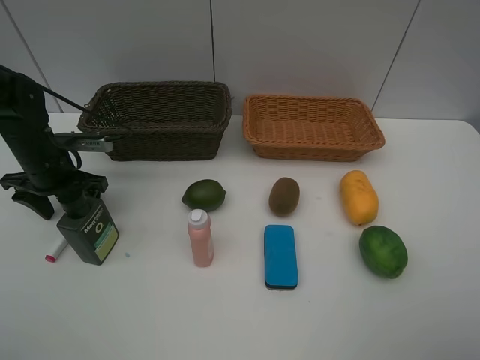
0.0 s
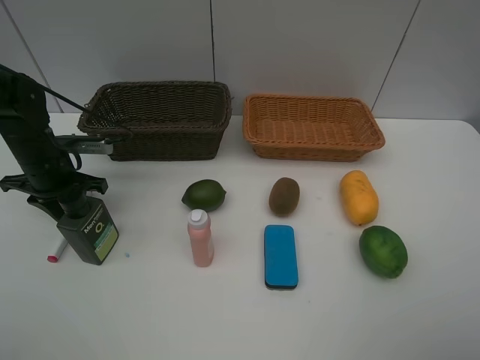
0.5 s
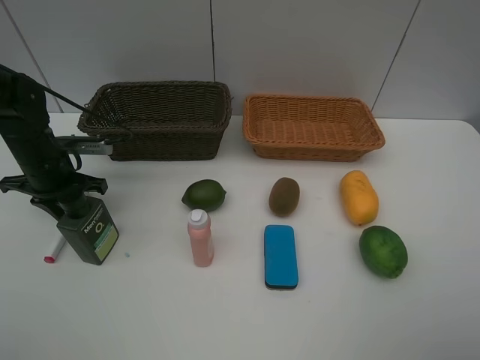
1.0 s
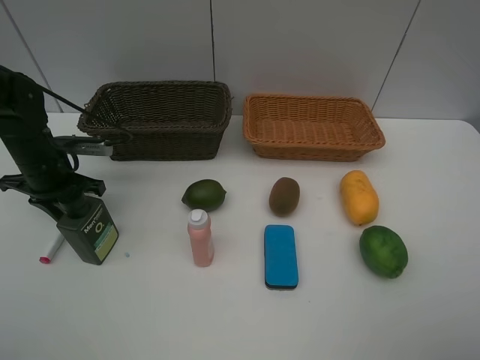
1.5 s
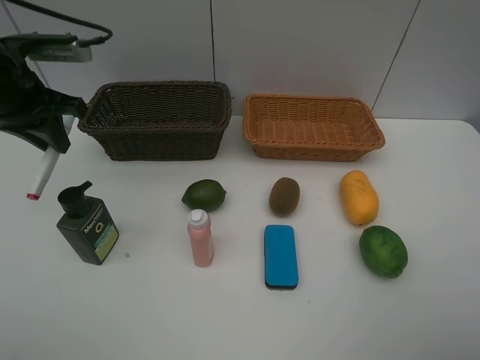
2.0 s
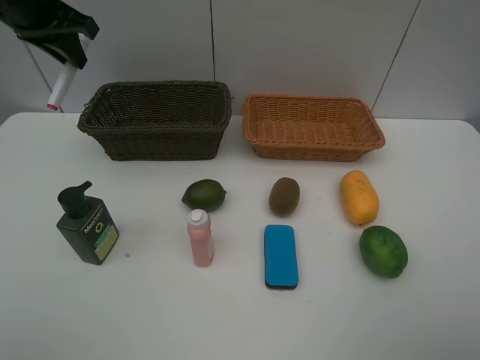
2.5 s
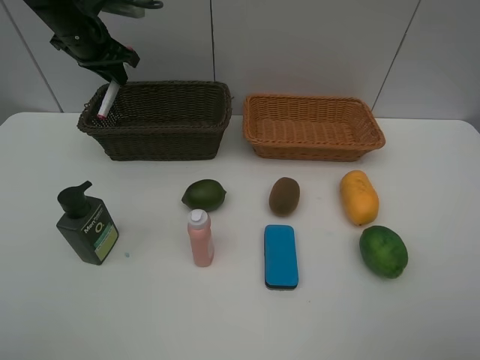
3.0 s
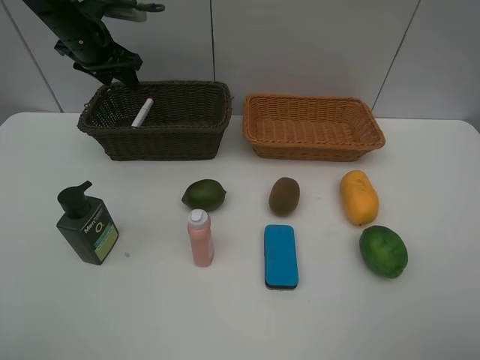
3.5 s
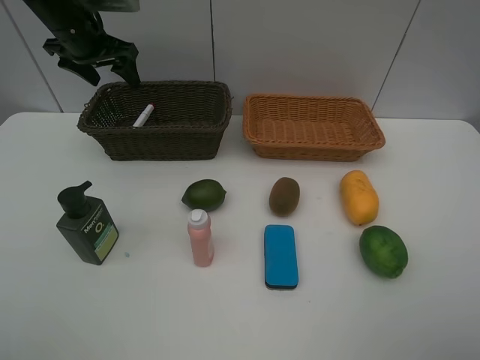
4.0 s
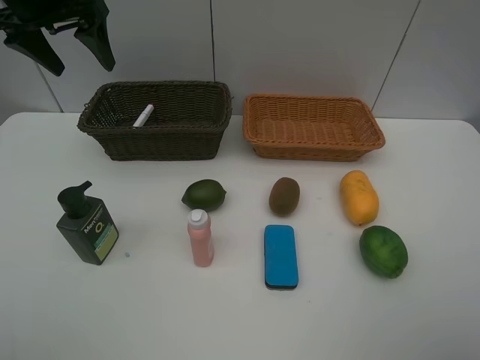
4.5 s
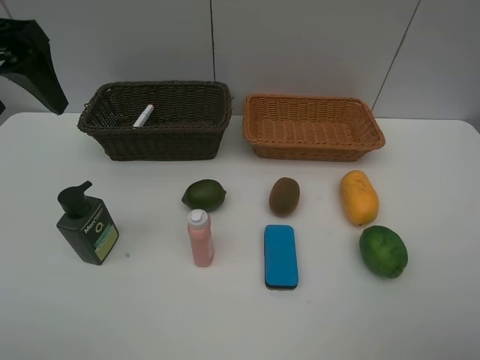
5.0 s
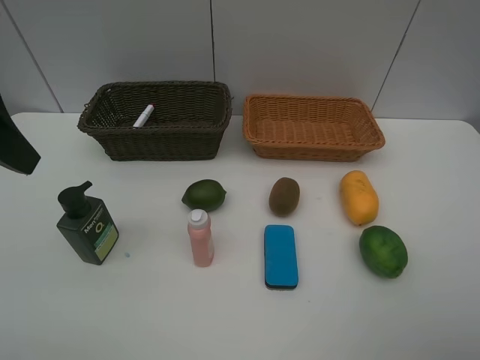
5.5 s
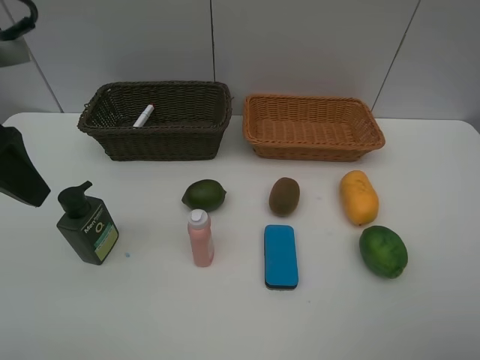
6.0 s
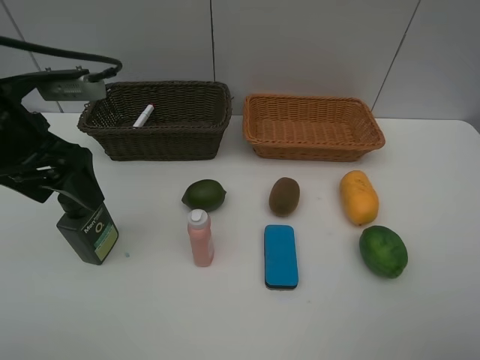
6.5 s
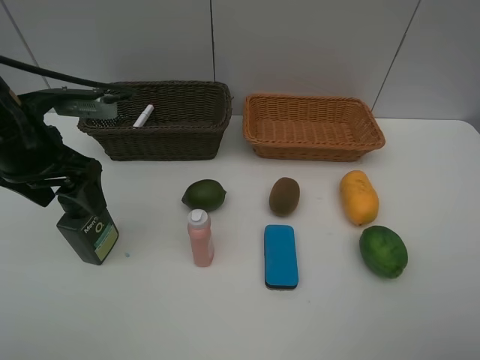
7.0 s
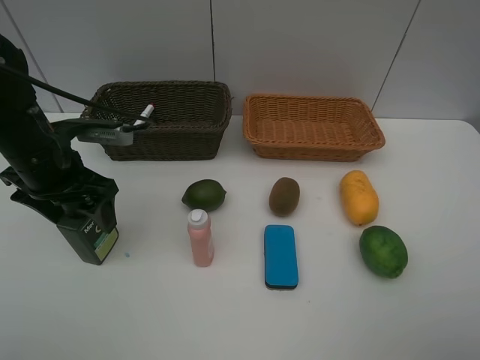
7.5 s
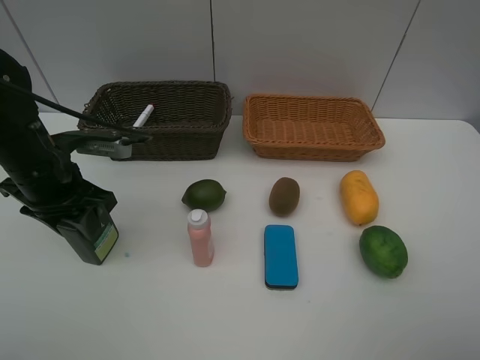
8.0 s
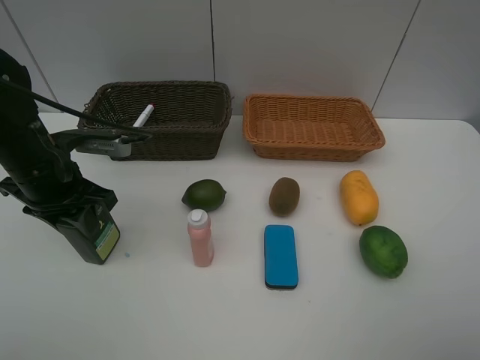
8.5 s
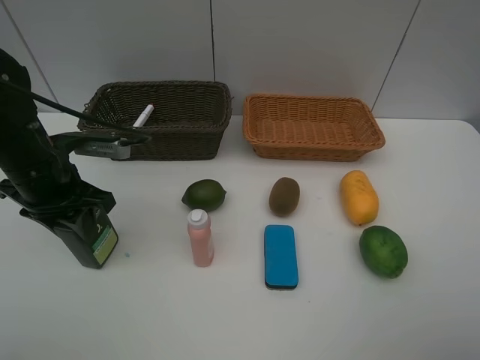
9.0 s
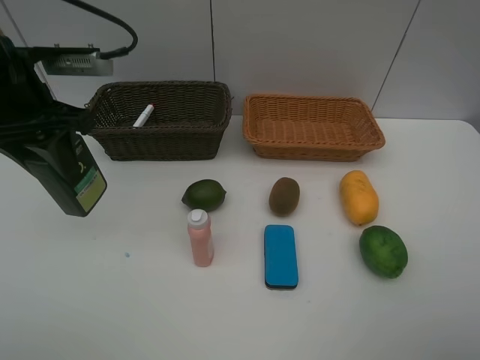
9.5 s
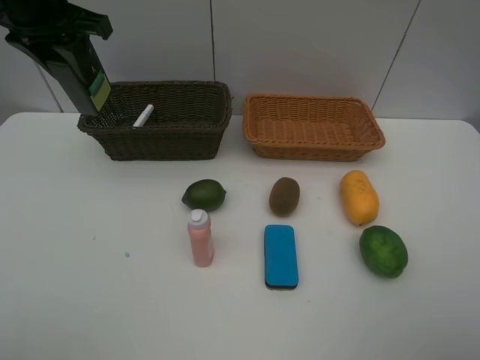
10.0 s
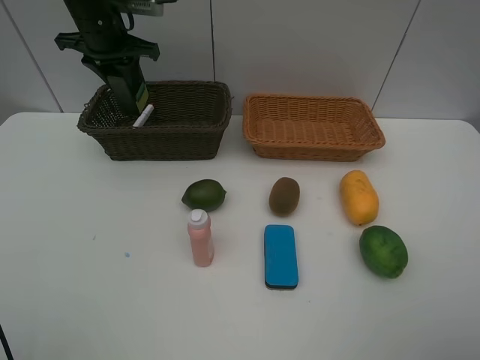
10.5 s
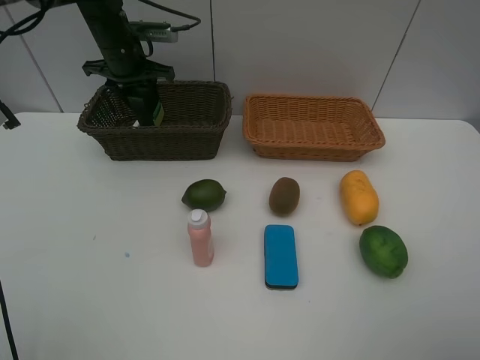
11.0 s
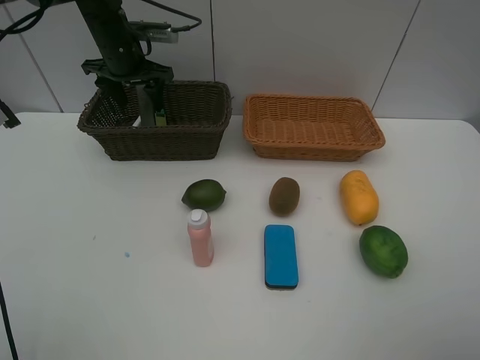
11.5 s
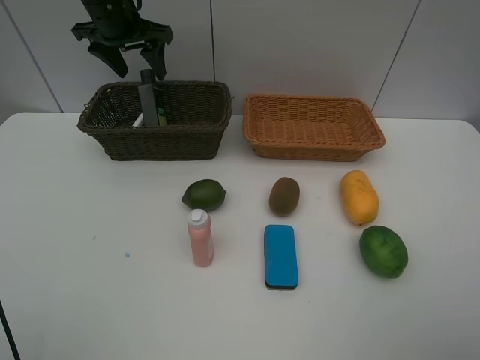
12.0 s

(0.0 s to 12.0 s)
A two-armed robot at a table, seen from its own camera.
Task of the whole recording: Place multiple objects separately in different baskets.
Step, 2.0 s - 3.5 s: Place the red marker in the dark basket with left gripper.
Step, 4.0 s - 9.0 s: Pick up the hard facial cleanser with left gripper.
Step, 9.5 s - 11.0 s: Place the hard facial cleanser in the dark basket with left gripper.
0.0 s - 2.0 s: The left gripper is displaced upward by some 15 cm, and closes its fingers.
2.0 s - 4.0 s: The left gripper moves forward, roughly 15 cm, and opens up.
4.0 s - 6.0 s: The left gripper goes roughly 25 cm backward.
6.0 s - 8.0 s: The left gripper is displaced downward and forward by about 15 cm, and closes its fingers.
8.0 s - 10.0 s: The left gripper travels upward and forward by some 20 cm.
10.0 s - 12.0 s: The left gripper is displaced forward by about 10 cm, and opens.

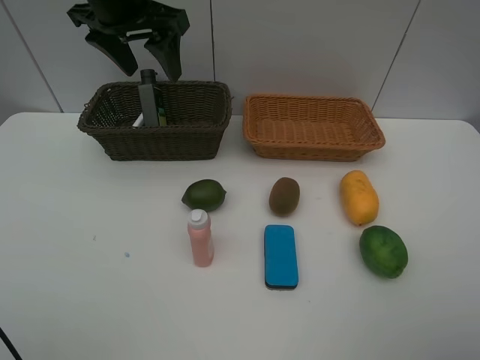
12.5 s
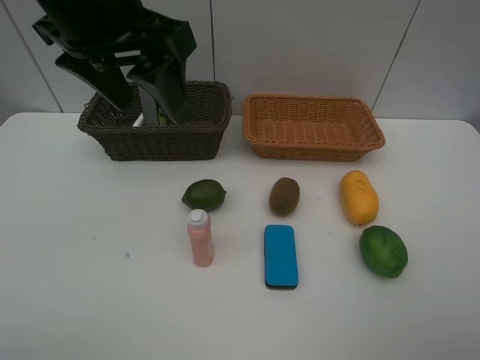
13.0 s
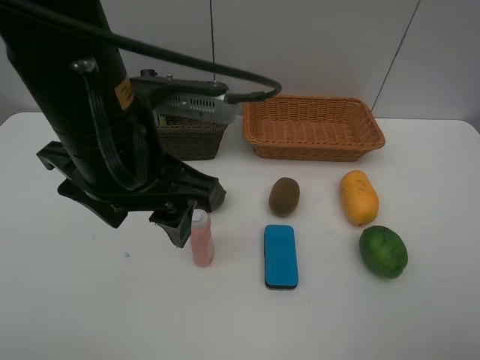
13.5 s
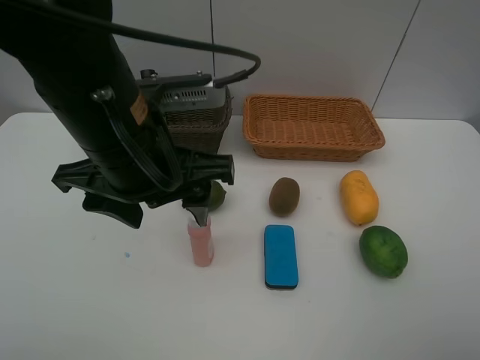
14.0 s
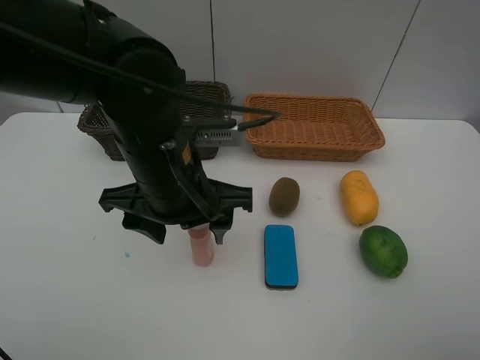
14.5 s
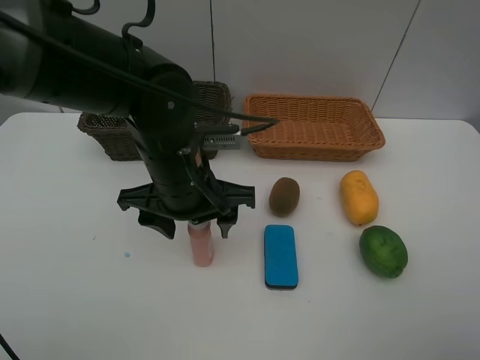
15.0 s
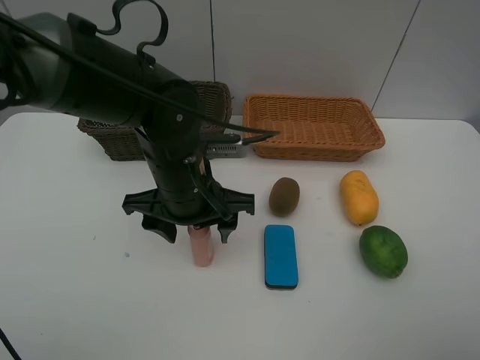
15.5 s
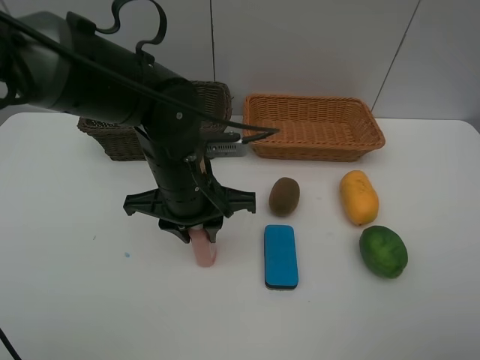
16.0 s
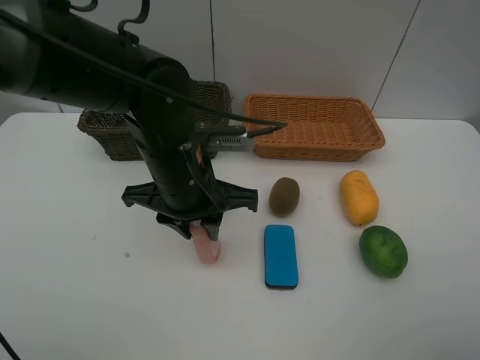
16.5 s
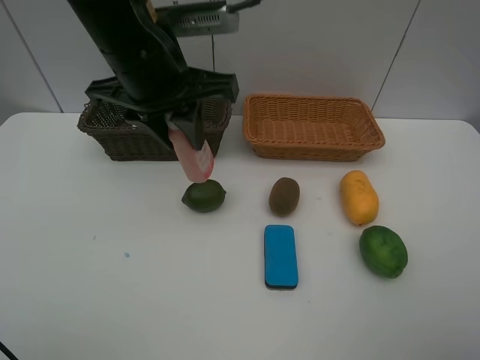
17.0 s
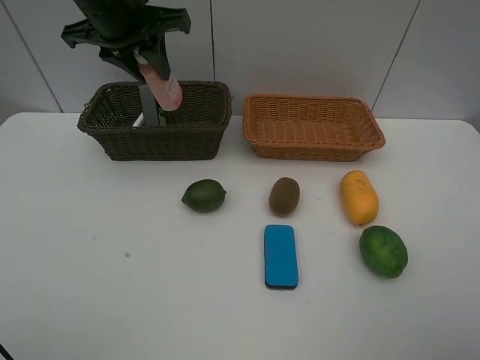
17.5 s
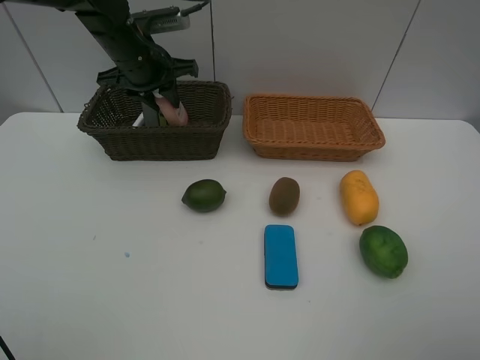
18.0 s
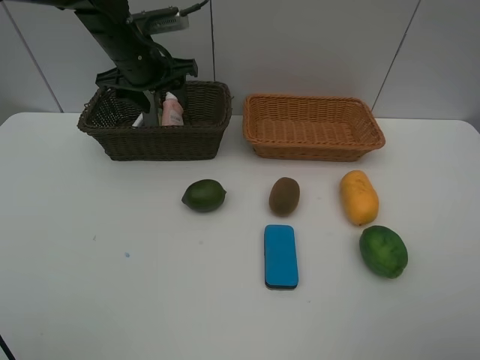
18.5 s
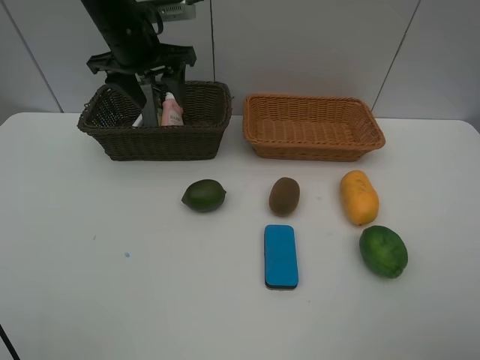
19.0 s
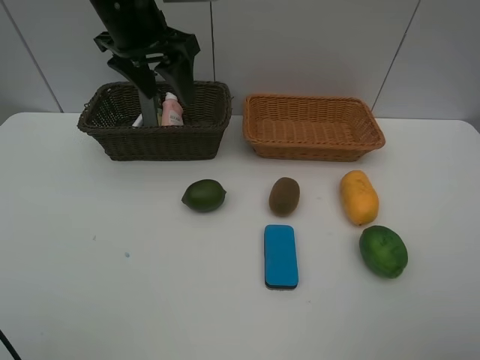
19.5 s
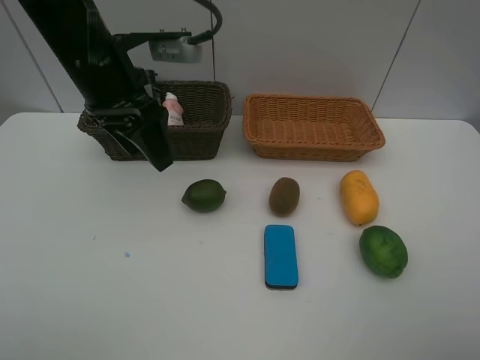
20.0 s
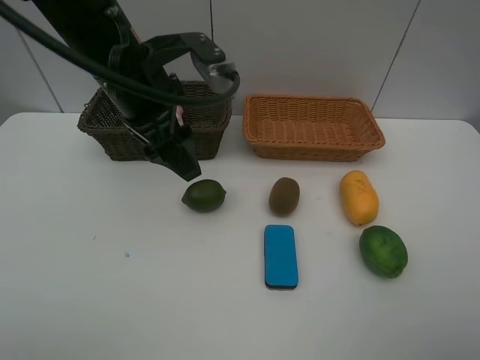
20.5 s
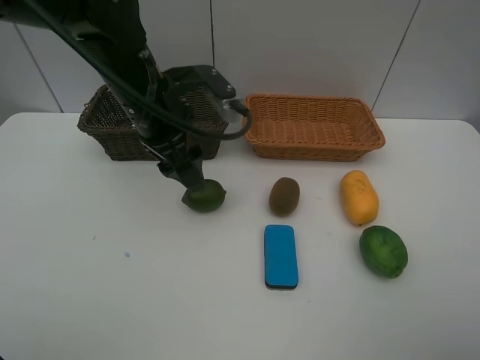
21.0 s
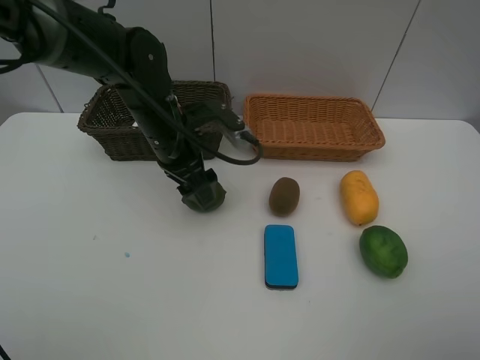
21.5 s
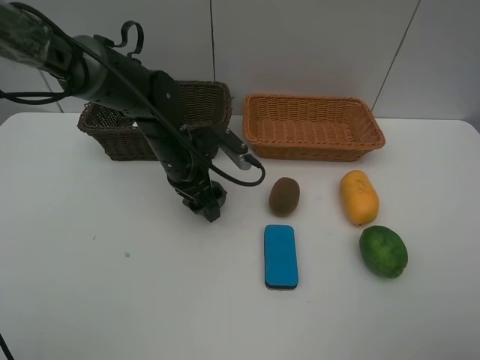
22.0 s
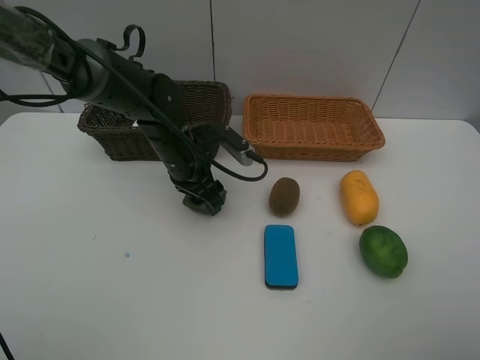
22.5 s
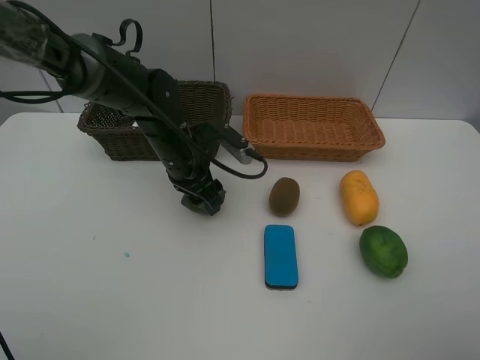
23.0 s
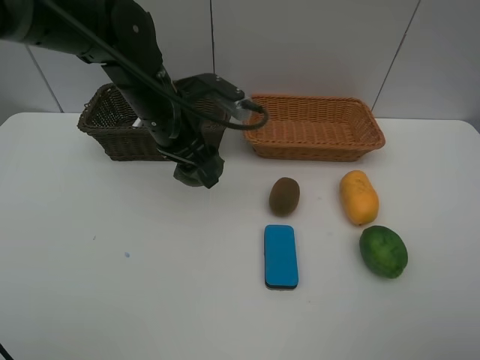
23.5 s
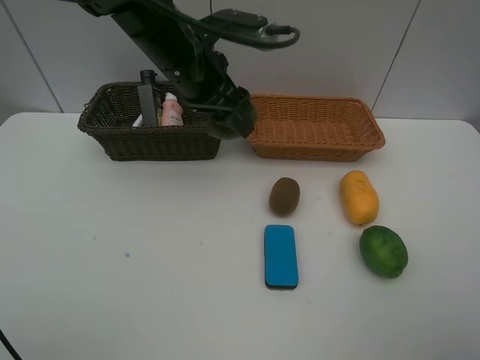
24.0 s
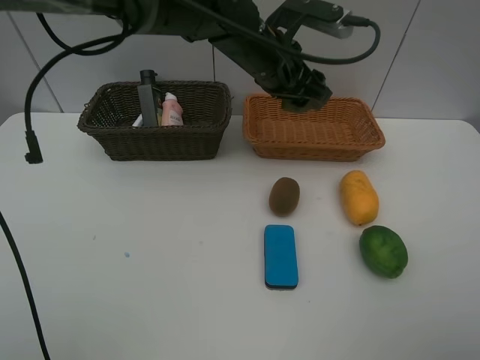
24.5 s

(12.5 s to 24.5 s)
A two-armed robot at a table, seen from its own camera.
Task of the whole recording: Place multiple objects separately in different baskets.
Step, 12.5 s - 16.5 s: Pick up the laundry detergent with left gripper.
Step, 17.0 s - 19.0 s: Place the laundry detergent in the dark basket with left gripper.
Step, 19.5 s - 23.0 s: Pick up the lemon with left gripper.
12.5 s - 14.5 s: The left gripper moves backward, downward and to the right, roughly 20 cm.
14.5 s - 16.5 s: The left gripper closes.
16.5 s - 18.5 s: The left gripper heads forward and to the left, covering about 20 cm, and opens.
18.5 s - 20.5 s: The left gripper travels backward by approximately 15 cm.
20.5 s - 22.5 s: The left gripper is displaced downward by about 15 cm.
22.5 s - 24.5 s: The left gripper shifts some 15 cm upward and to the right.

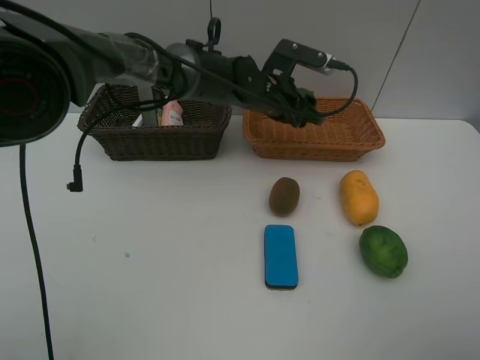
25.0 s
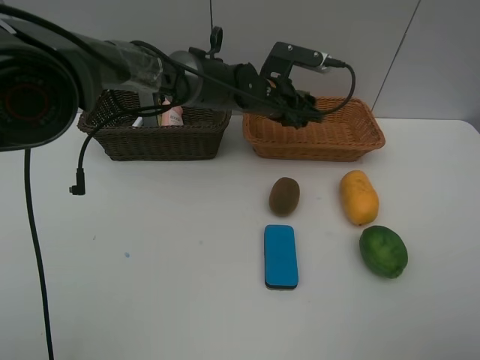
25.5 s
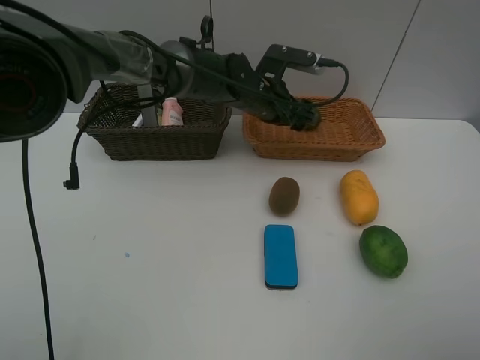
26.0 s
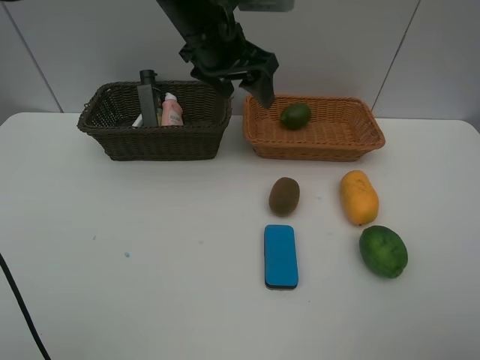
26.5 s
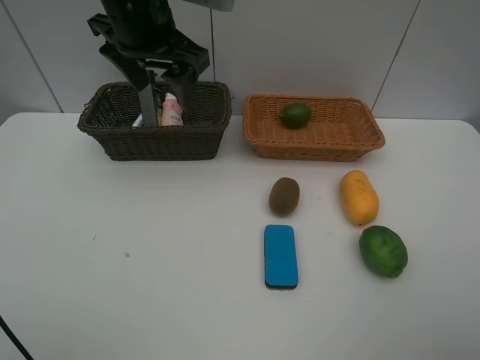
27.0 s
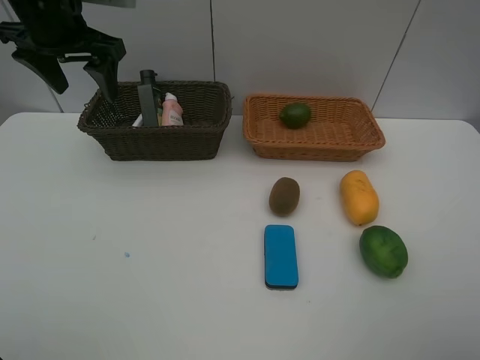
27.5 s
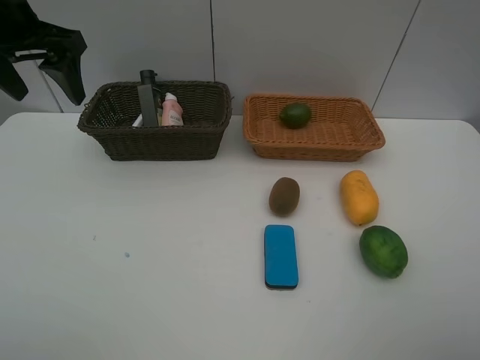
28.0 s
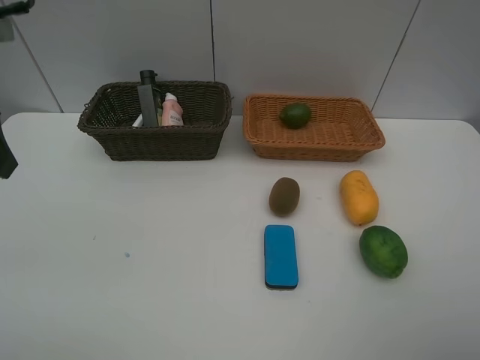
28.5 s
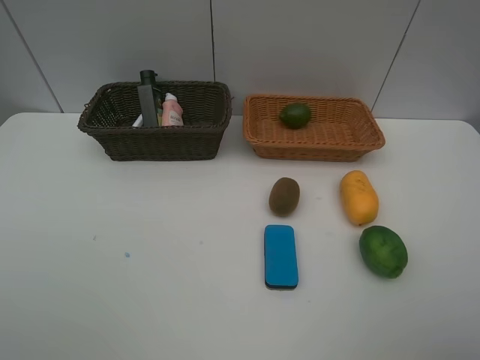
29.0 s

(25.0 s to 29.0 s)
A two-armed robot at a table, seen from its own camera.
Task of the whole recording: Place multiple objects separately in different baskets.
25.0 s - 27.0 s: The left gripper goes roughly 25 cm upward, to the left and backward.
27.0 s - 29.0 s: The left gripper shifts roughly 30 cm backward and to the left.
